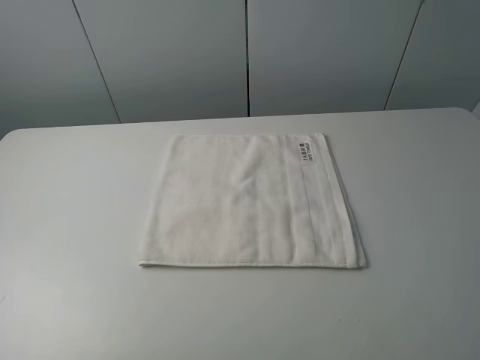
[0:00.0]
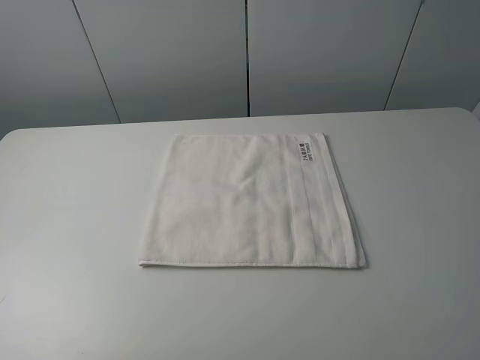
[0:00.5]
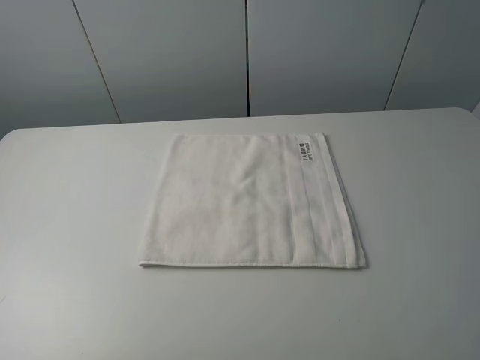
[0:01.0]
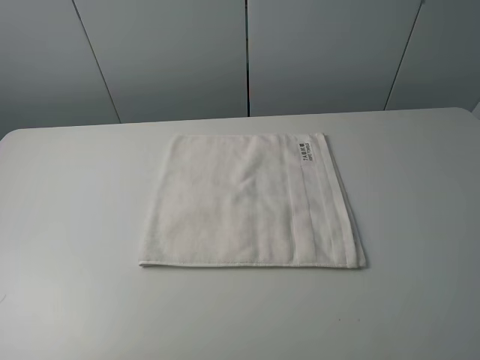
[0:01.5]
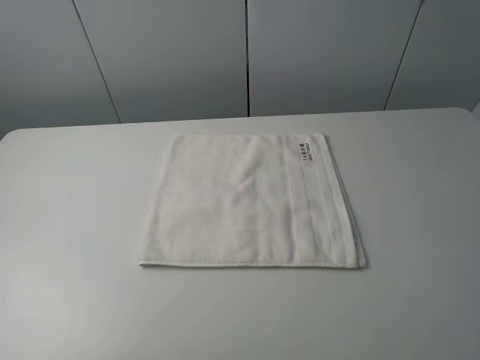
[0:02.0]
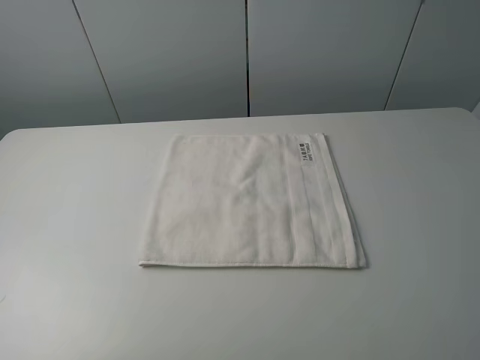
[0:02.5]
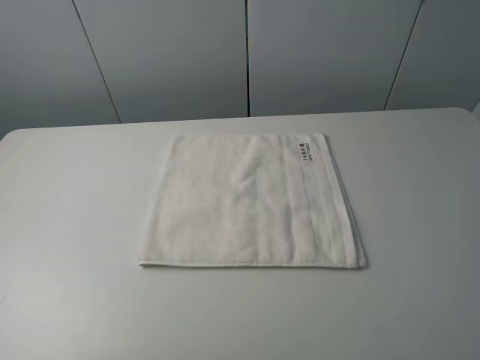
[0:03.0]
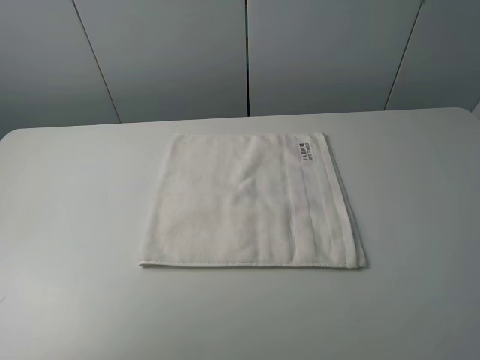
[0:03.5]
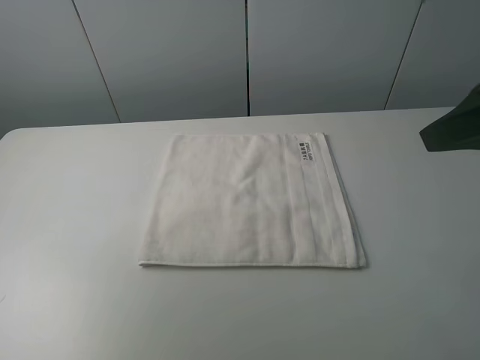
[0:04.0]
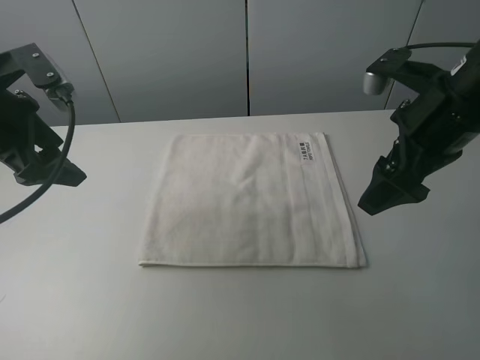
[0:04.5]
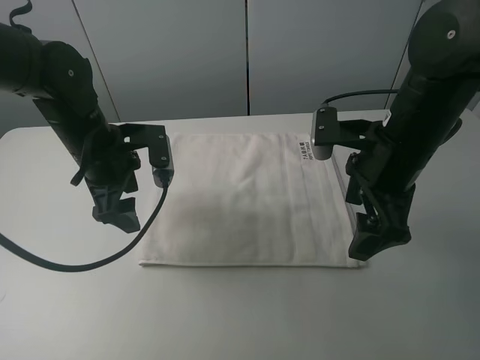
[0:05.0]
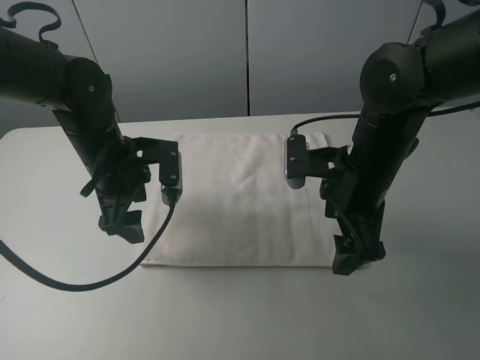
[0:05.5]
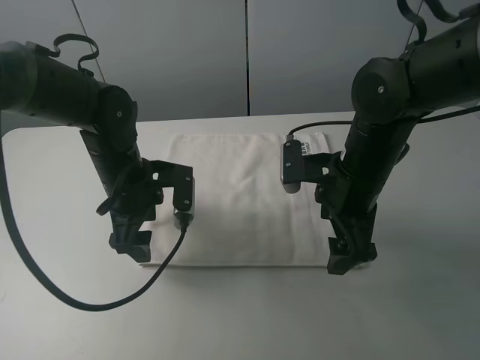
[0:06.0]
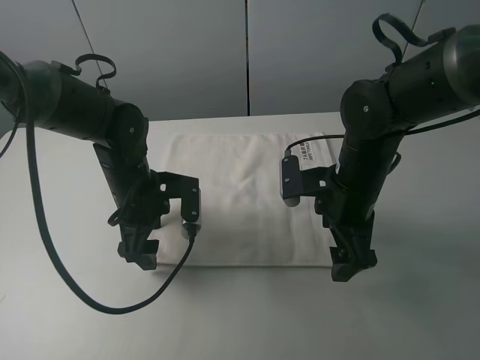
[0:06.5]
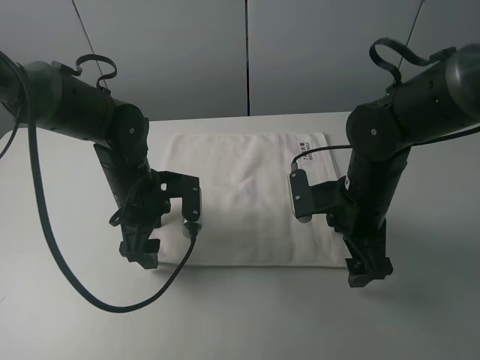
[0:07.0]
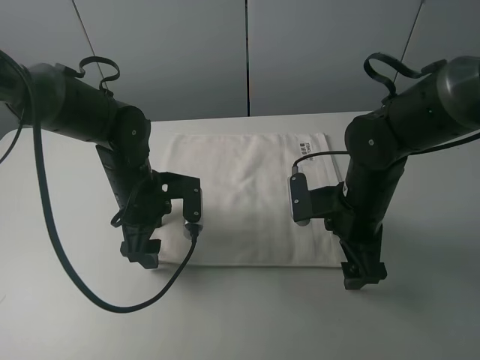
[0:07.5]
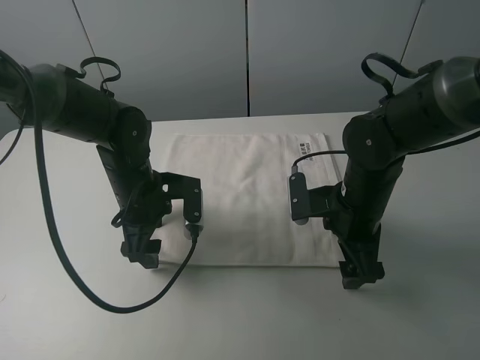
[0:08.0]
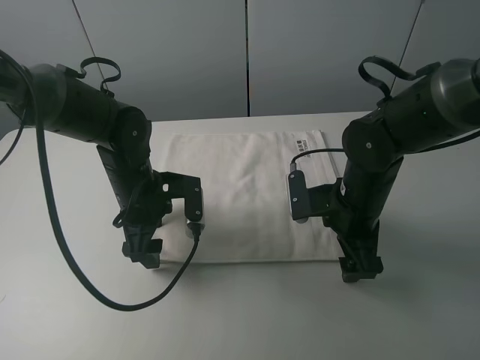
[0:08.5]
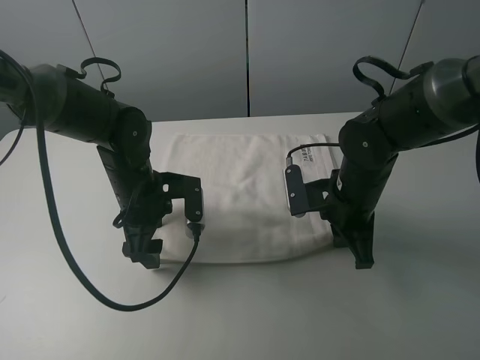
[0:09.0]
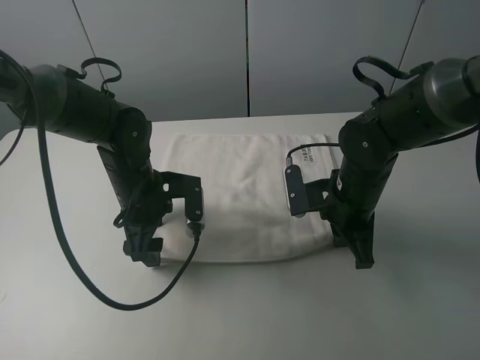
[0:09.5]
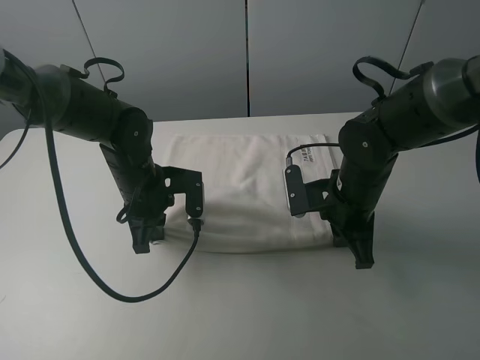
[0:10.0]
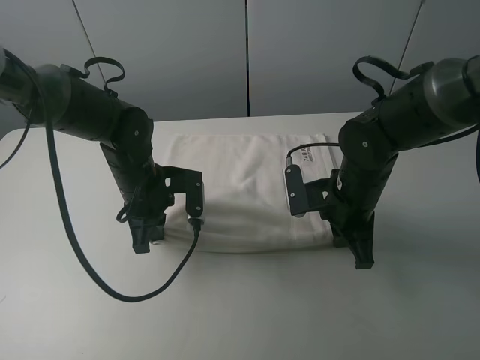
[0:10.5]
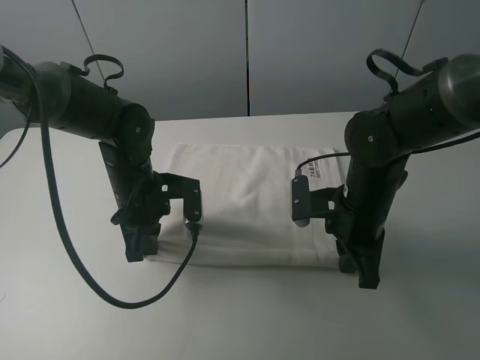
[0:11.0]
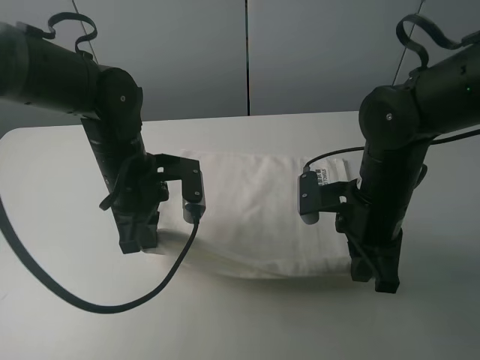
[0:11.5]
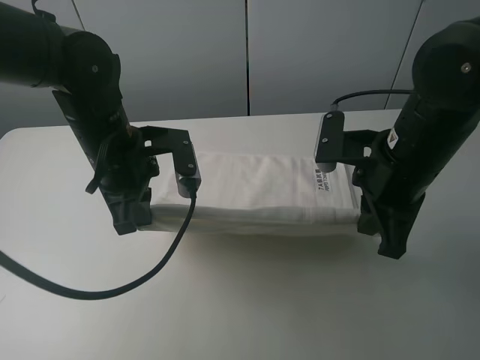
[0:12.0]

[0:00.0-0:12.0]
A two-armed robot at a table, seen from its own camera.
Task of the whole recording: fold the towels on the table.
Step, 0:00.0 to 0:09.0: Grasp the white towel with the right gripper.
Step, 0:09.5 to 0:10.5: Grasp the white towel with the left gripper.
0:00.0 to 0:02.0: The two grippers keep their place.
0:02.0 to 0:04.0: Both grippers move forward, some 20 cm.
0:04.0 to 0:06.0: The left gripper travels to the right and downward by about 30 cm. The right gripper goes about 20 cm downward, to the left and forward.
0:06.0 to 0:08.0: The right gripper shifts about 5 cm downward.
0:08.0 to 0:10.0: The left gripper closes up, while the right gripper closes its fingers.
0:10.0 to 0:12.0: Both grippers move upward, about 10 cm.

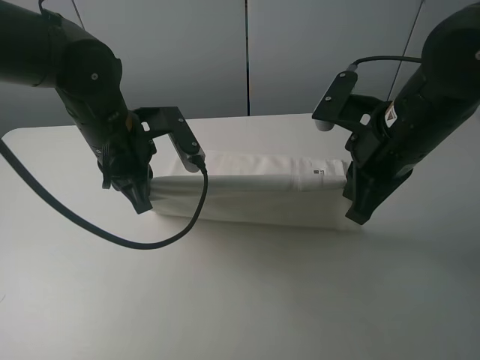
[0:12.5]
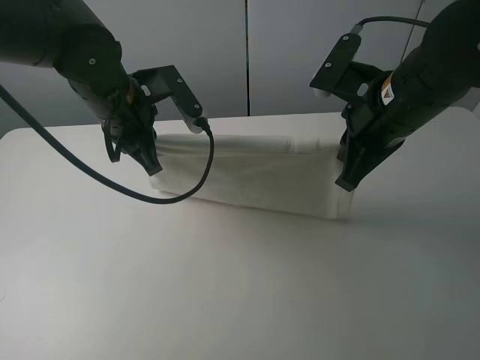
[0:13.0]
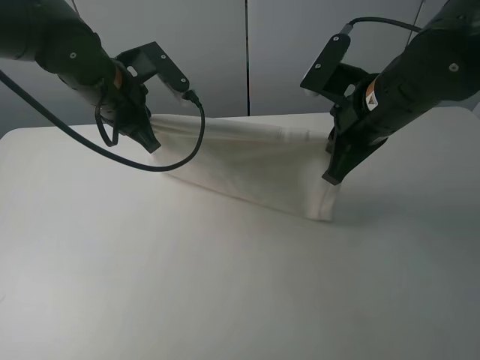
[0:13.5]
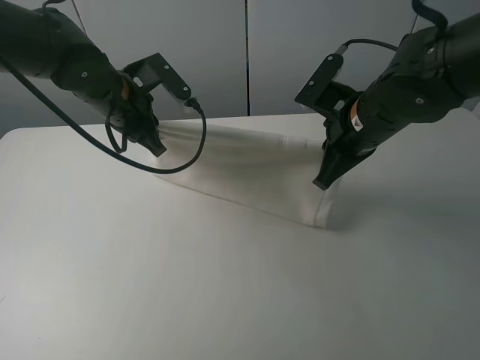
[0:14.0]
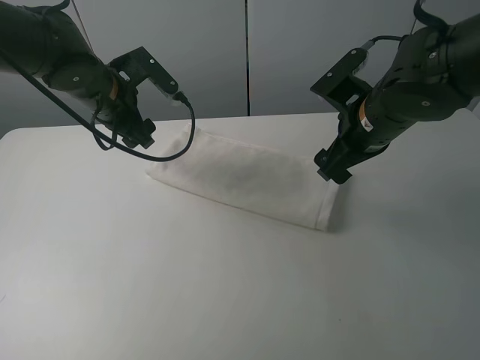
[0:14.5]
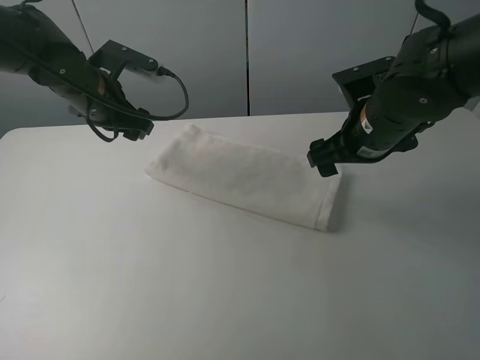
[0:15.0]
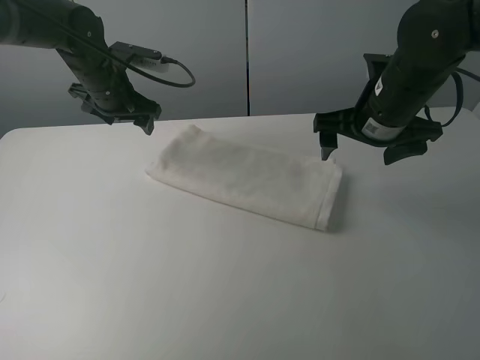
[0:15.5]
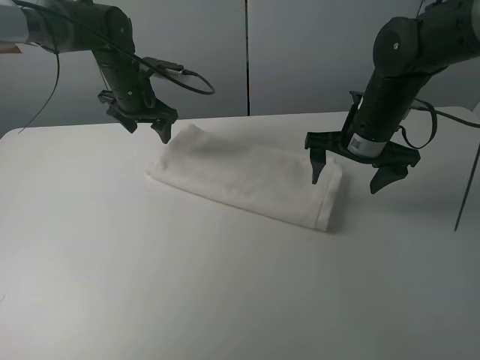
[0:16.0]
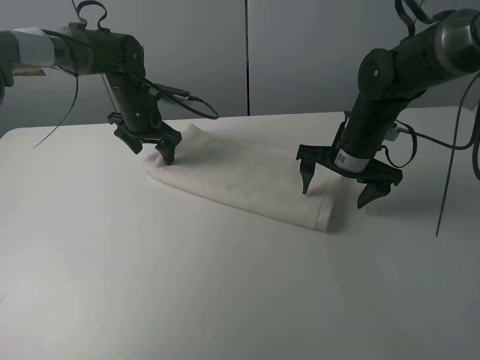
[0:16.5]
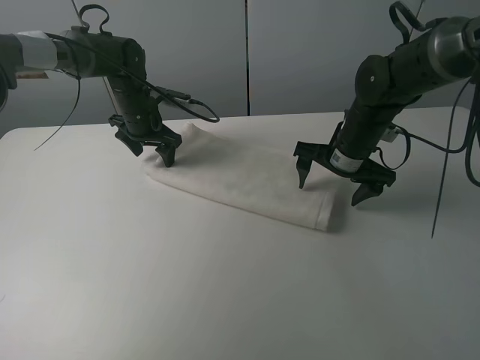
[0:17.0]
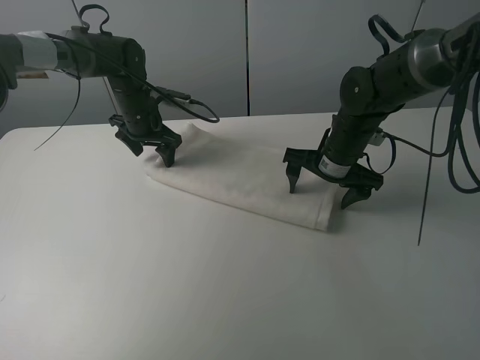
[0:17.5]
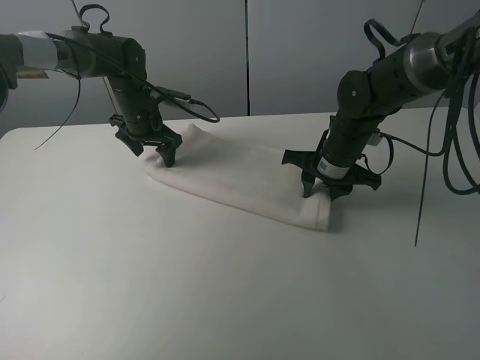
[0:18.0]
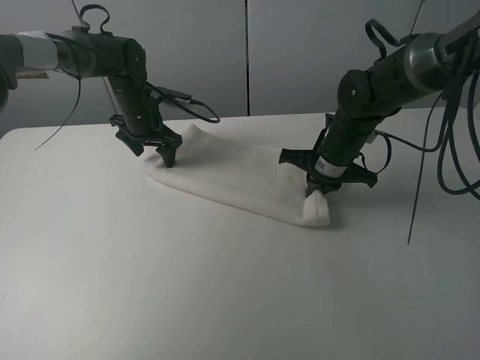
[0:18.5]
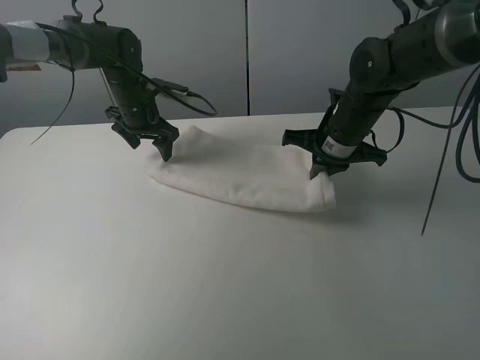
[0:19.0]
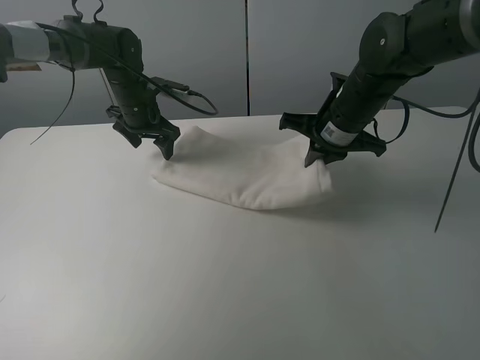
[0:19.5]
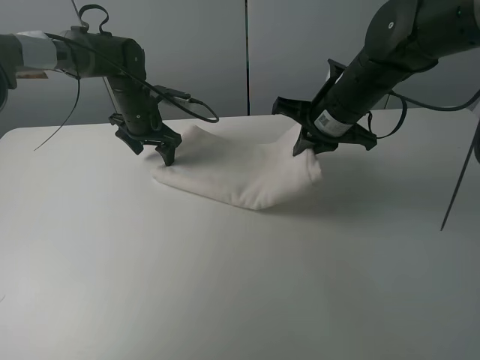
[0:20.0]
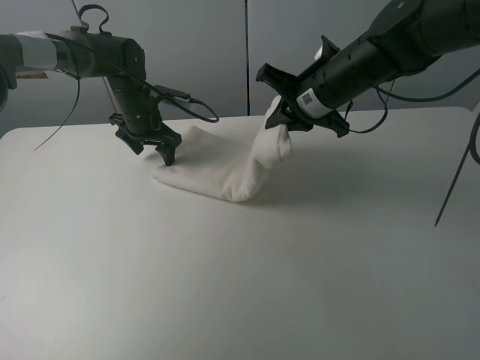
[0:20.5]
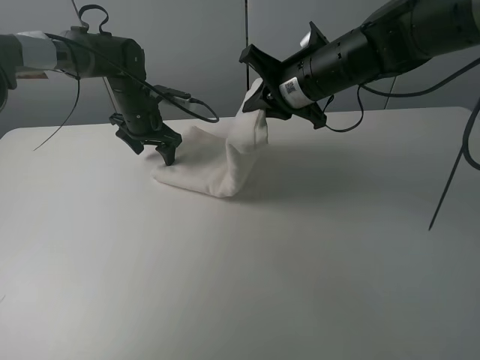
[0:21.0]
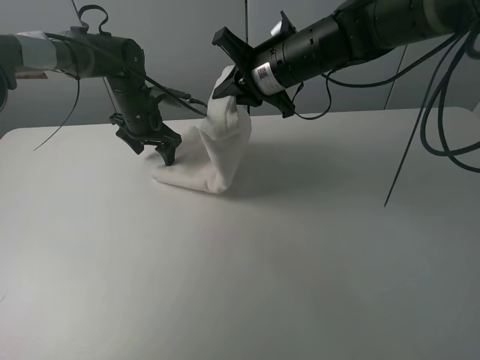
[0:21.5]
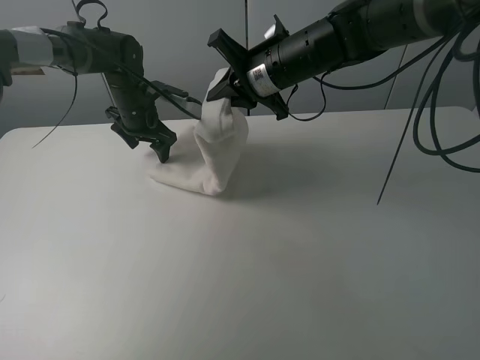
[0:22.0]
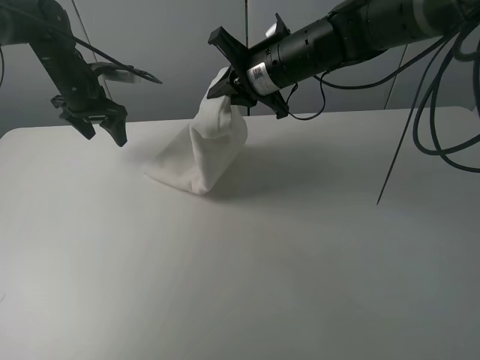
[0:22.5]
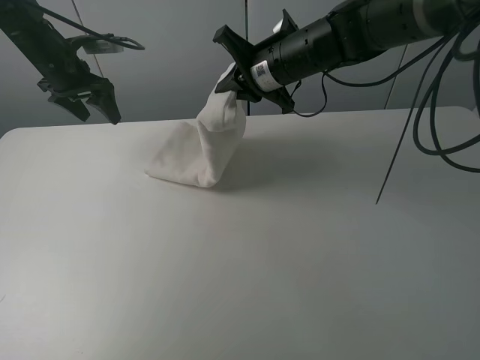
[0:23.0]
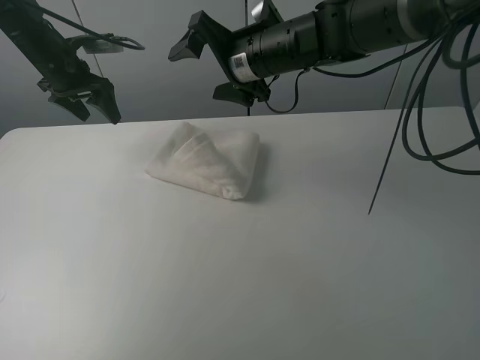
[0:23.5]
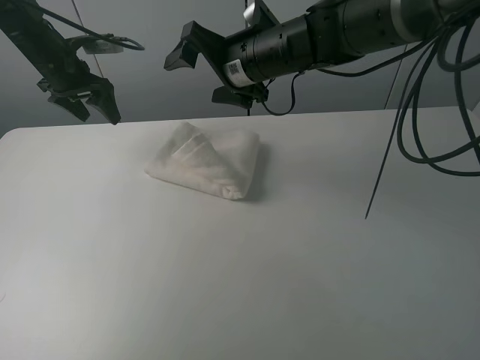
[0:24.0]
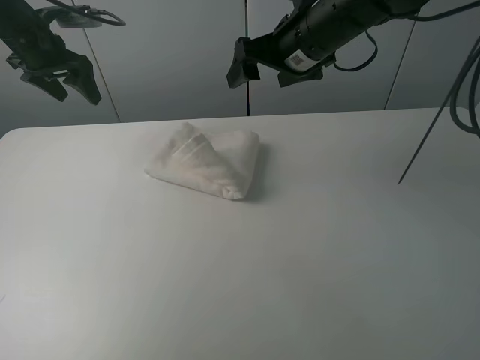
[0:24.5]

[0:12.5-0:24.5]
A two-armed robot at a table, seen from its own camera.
Task of the whole recording: fold the towels on the table.
Step, 0:12.5 to 0:15.5: Fold the white towel upwards with the right gripper.
0:12.5 to 0:14.5: The grippers both shift forward by approximately 5 cm. The right gripper opens, while the left gripper opens.
0:14.5 to 0:16.5: The right gripper shifts some 5 cm downward, while the left gripper moves forward and downward, about 15 cm.
0:16.5 to 0:18.5: The right gripper closes up.
0:18.5 to 0:20.5: The right gripper moves upward, roughly 10 cm.
0:20.5 to 0:22.5: The right gripper moves to the left, some 5 cm. Meanwhile the left gripper goes some 10 cm to the left and upward.
0:22.5 to 0:24.5: The left gripper is displaced upward by roughly 10 cm, while the right gripper changes place by approximately 5 cm, and opens.

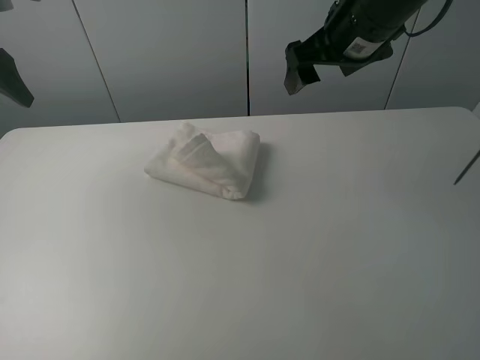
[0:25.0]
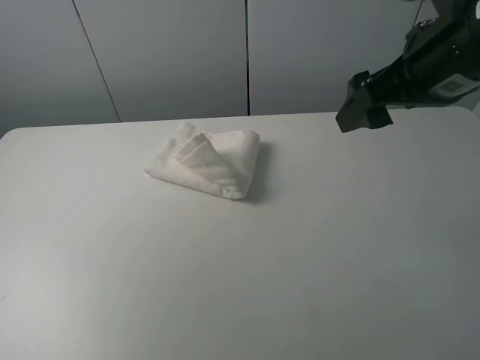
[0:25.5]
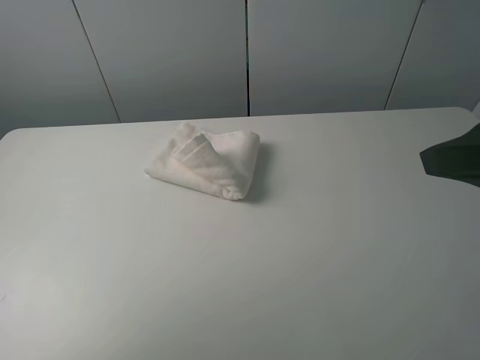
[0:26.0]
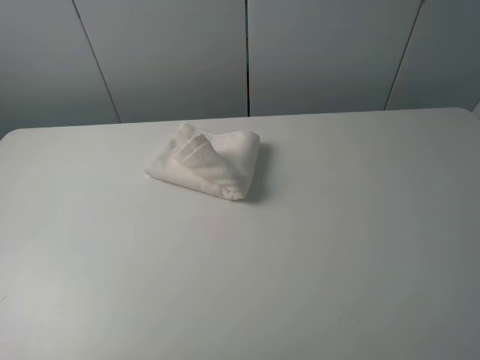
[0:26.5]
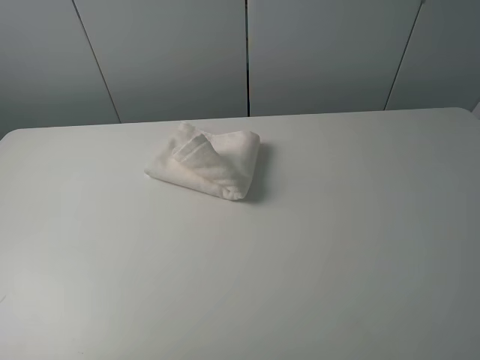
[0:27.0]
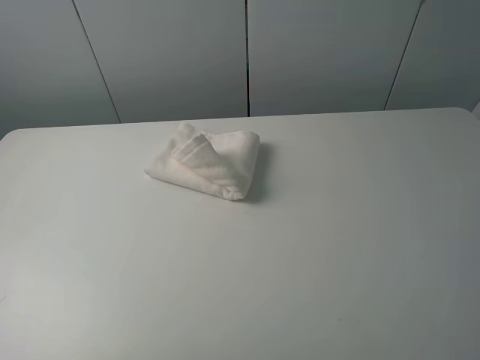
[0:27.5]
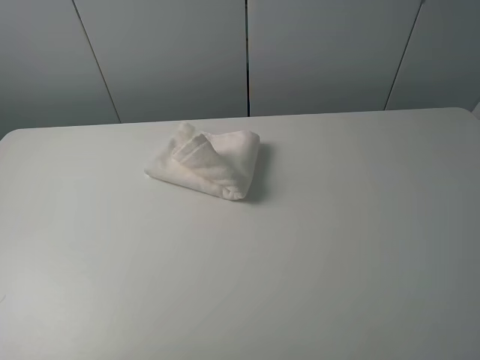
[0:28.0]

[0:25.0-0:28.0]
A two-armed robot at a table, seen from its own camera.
Task of the whole recording: fold the towels on the table.
0:25.0 to 0:26.5: The right gripper travels backward and to the right by approximately 35 cm. The left gripper heads backward, covering about 35 cm.
